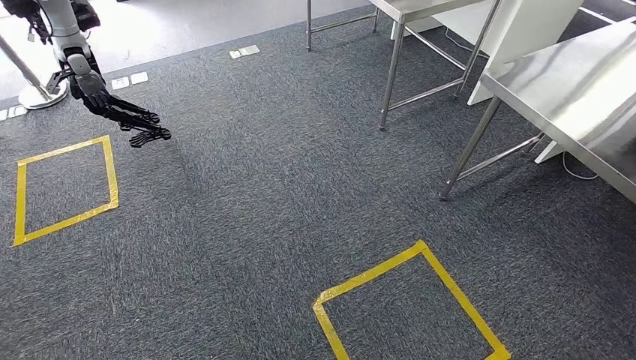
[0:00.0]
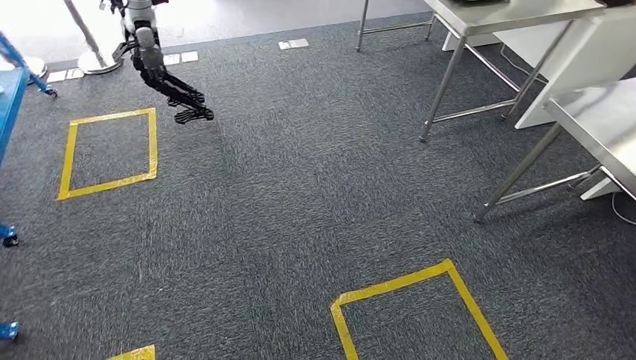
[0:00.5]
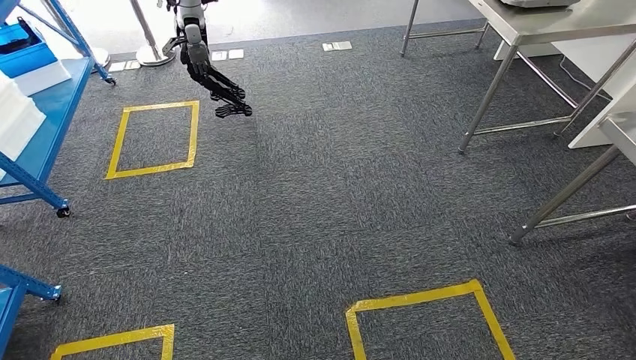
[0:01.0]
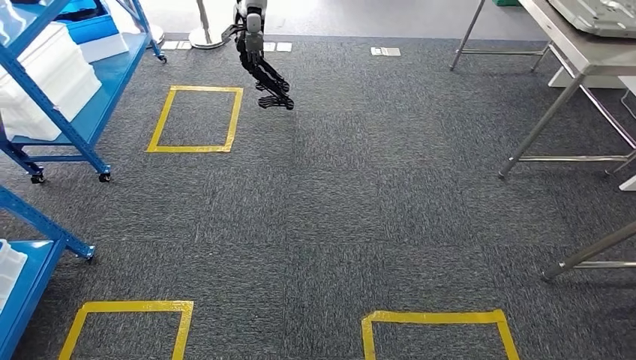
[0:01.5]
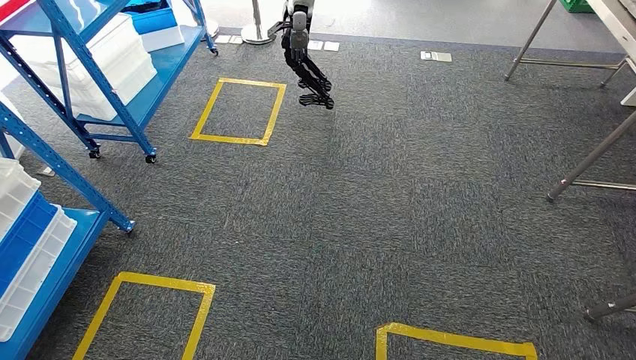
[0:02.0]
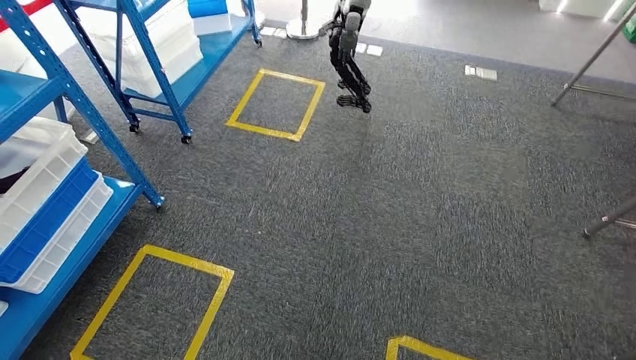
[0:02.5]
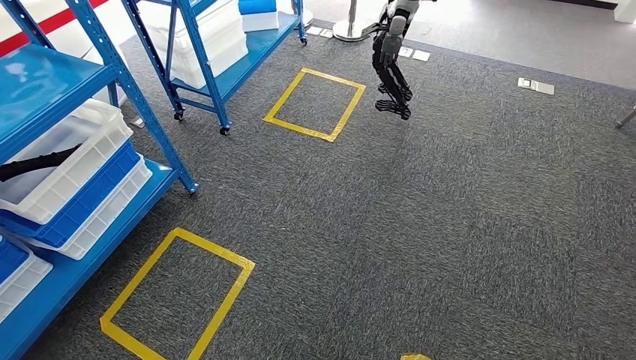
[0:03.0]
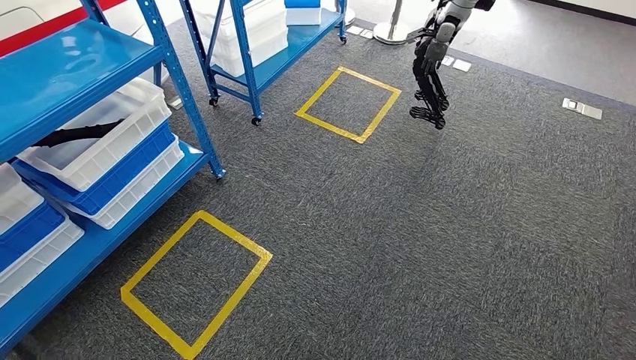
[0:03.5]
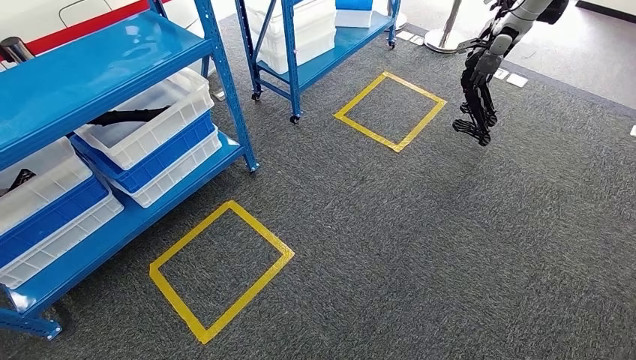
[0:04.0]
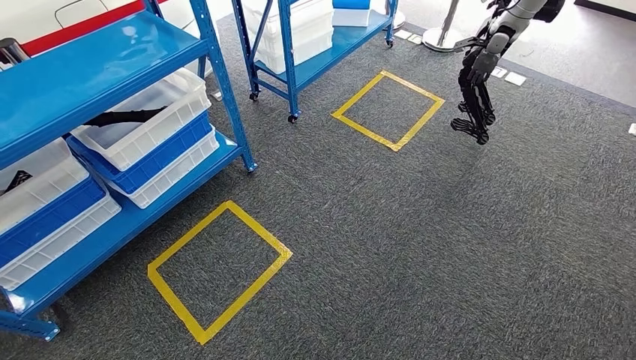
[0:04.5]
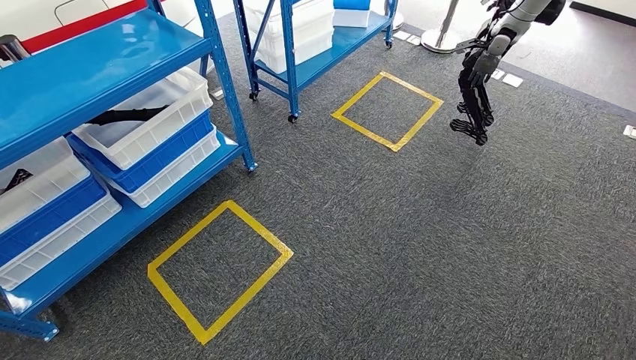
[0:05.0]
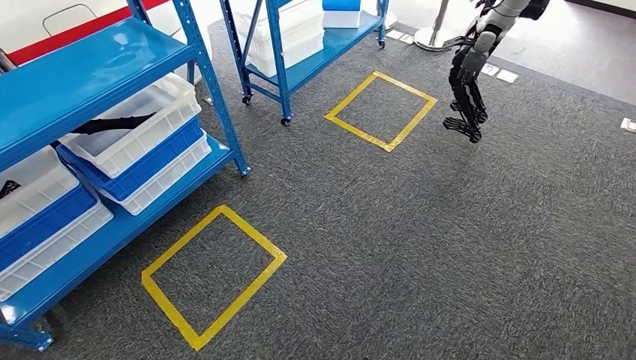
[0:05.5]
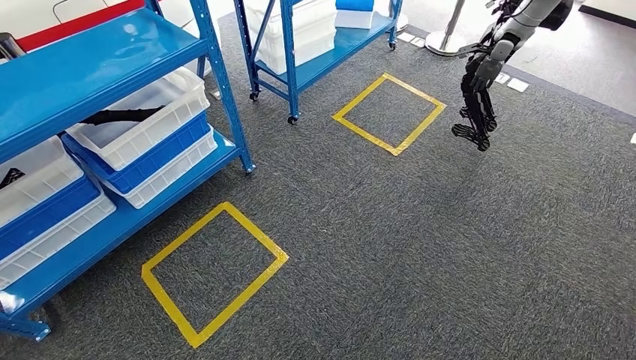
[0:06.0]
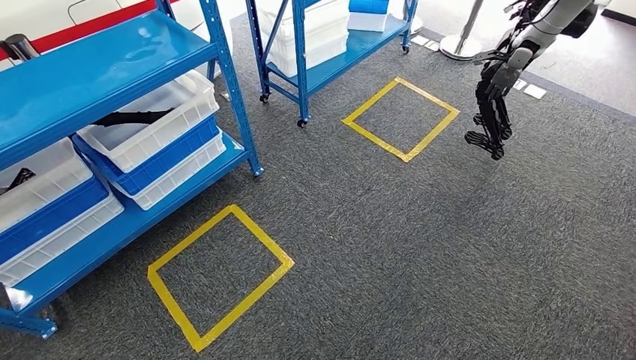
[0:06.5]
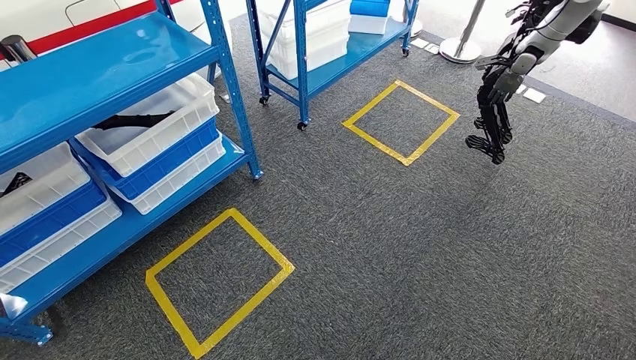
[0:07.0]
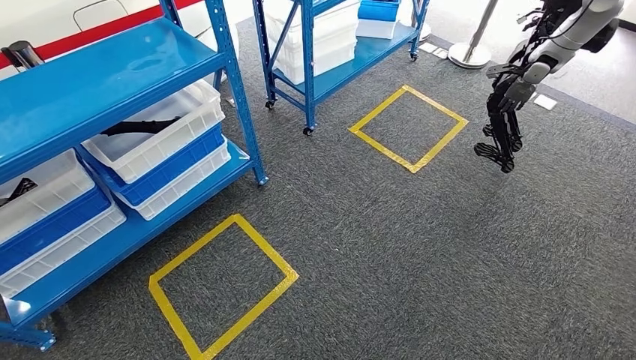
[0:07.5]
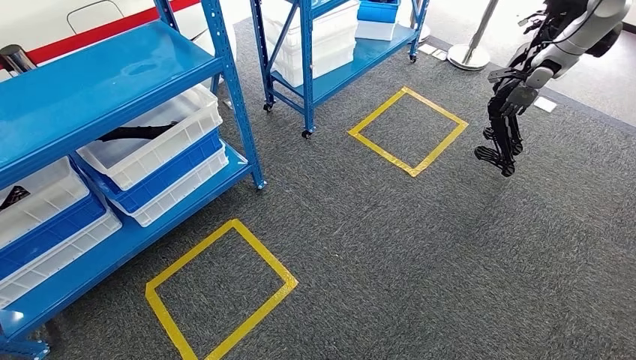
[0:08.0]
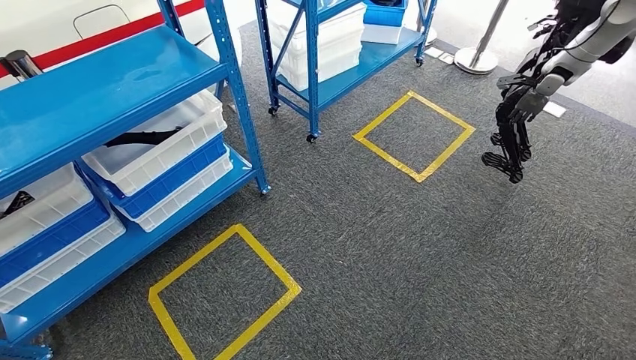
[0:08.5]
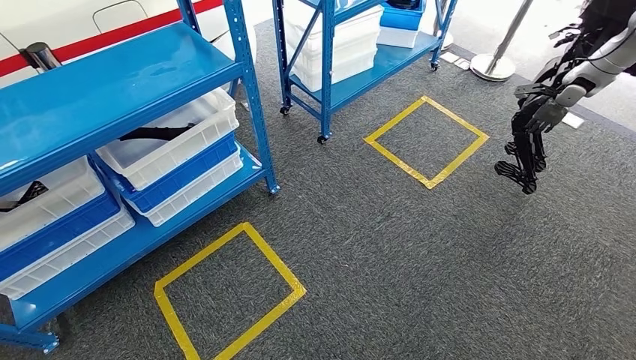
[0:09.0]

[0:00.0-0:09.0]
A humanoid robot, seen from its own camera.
Step, 0:00.0 to 0:09.0: Return to the initial position at the shelf.
